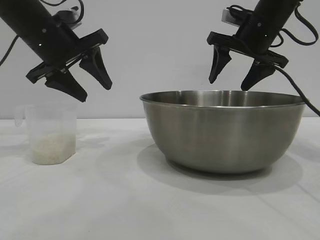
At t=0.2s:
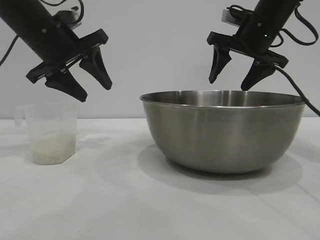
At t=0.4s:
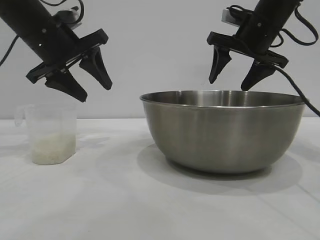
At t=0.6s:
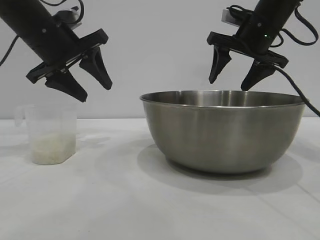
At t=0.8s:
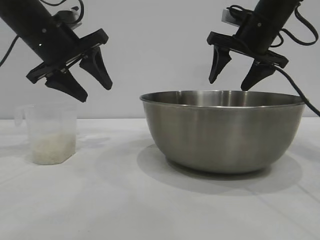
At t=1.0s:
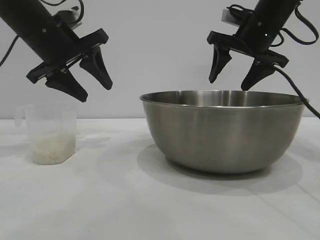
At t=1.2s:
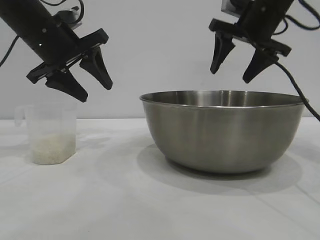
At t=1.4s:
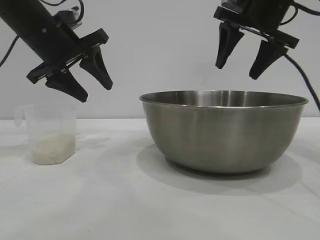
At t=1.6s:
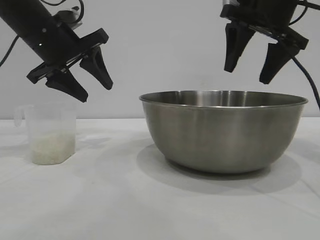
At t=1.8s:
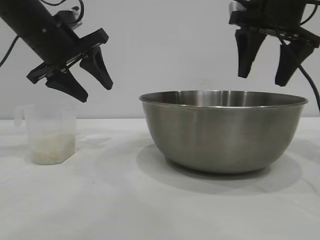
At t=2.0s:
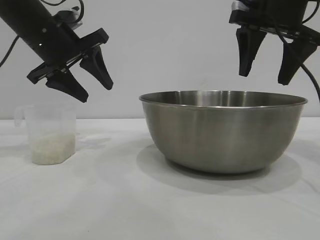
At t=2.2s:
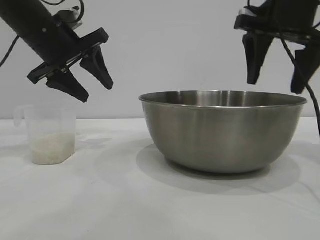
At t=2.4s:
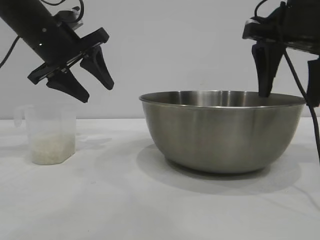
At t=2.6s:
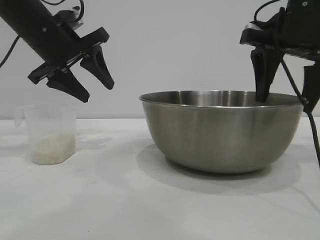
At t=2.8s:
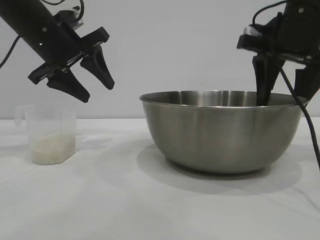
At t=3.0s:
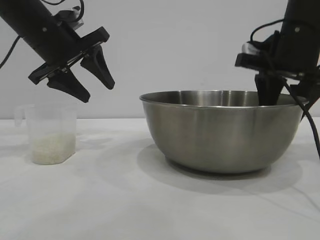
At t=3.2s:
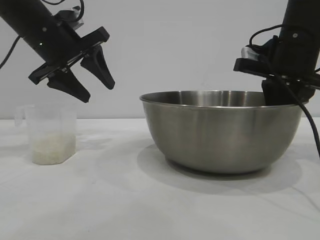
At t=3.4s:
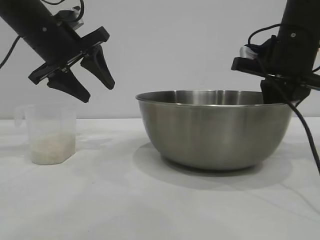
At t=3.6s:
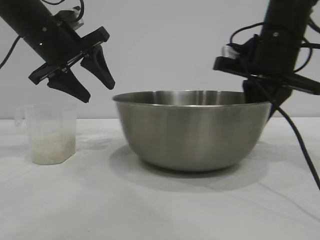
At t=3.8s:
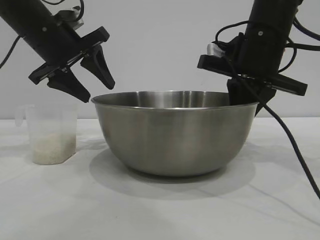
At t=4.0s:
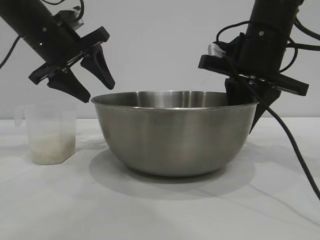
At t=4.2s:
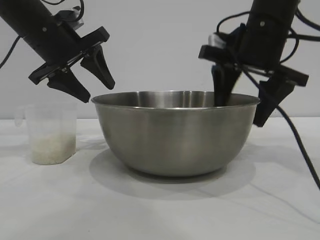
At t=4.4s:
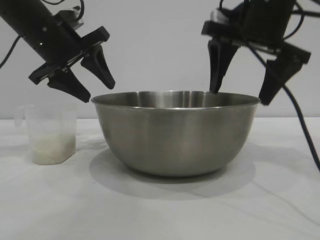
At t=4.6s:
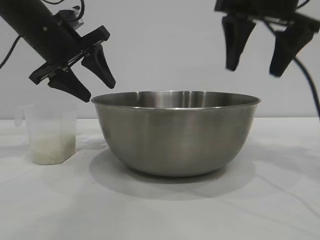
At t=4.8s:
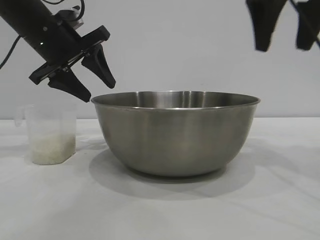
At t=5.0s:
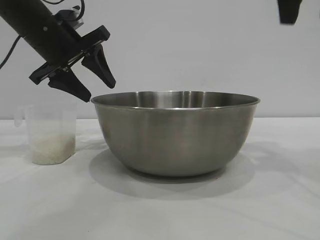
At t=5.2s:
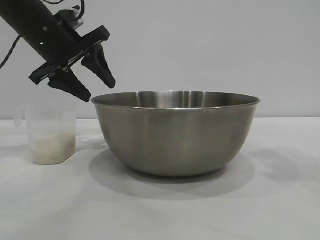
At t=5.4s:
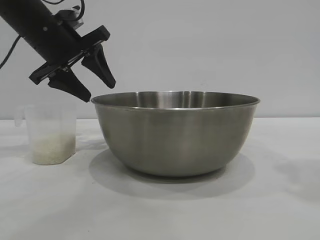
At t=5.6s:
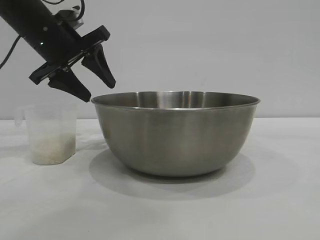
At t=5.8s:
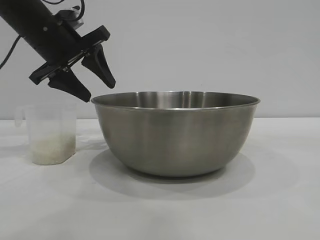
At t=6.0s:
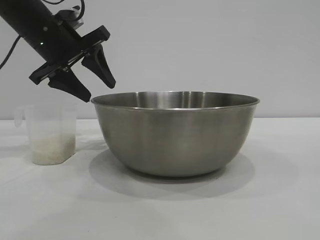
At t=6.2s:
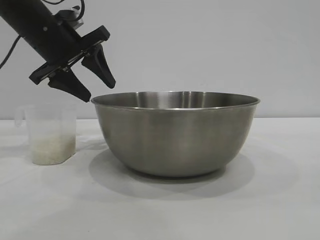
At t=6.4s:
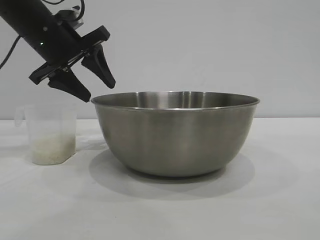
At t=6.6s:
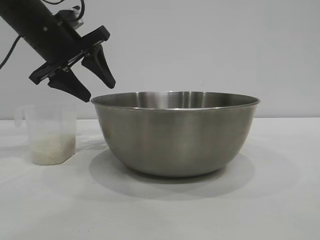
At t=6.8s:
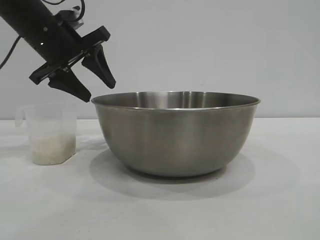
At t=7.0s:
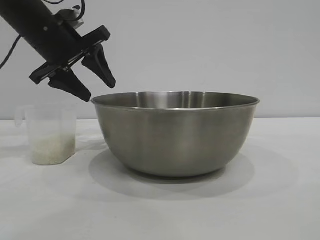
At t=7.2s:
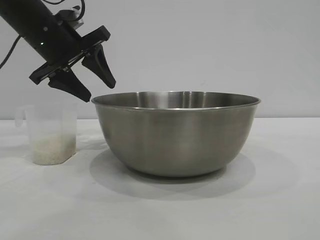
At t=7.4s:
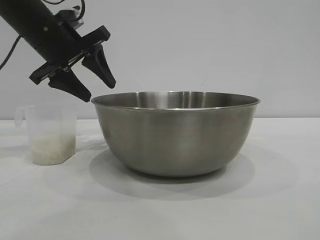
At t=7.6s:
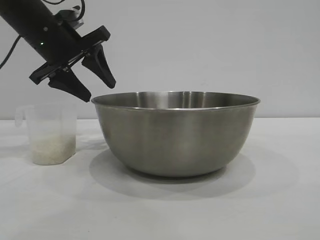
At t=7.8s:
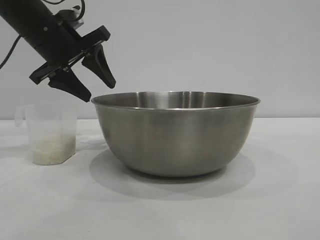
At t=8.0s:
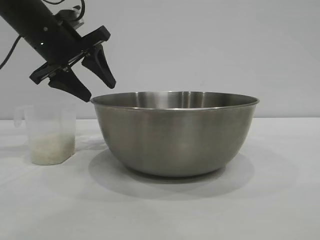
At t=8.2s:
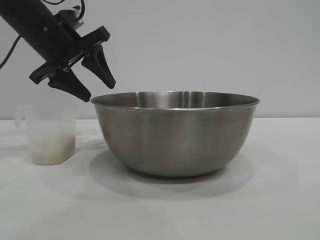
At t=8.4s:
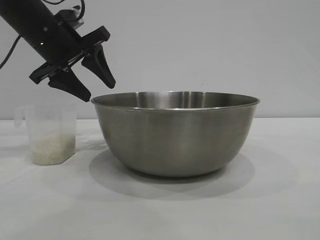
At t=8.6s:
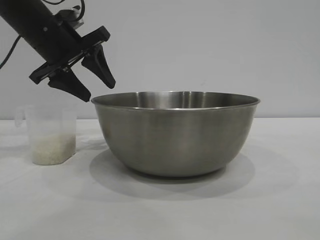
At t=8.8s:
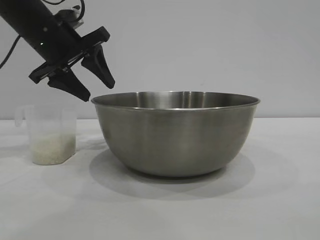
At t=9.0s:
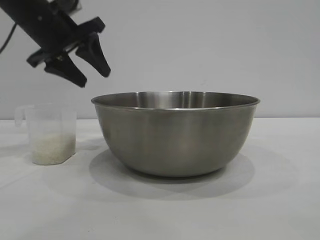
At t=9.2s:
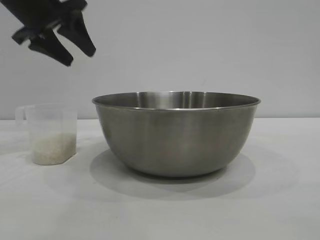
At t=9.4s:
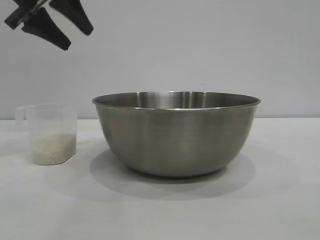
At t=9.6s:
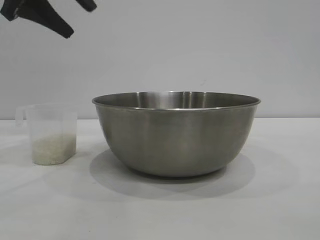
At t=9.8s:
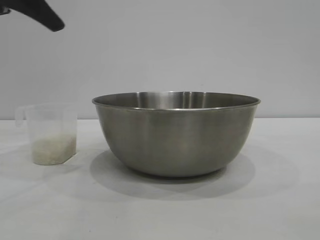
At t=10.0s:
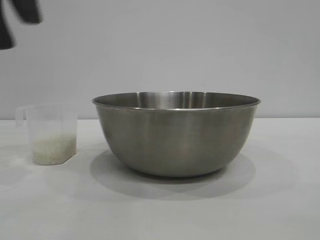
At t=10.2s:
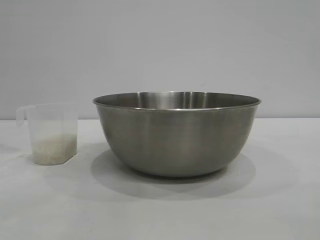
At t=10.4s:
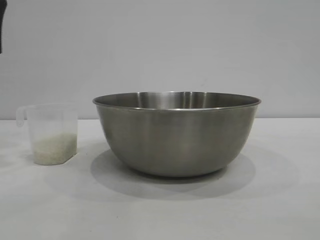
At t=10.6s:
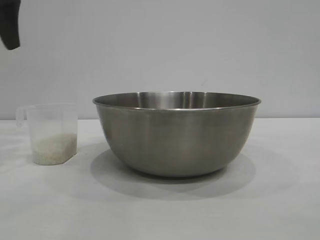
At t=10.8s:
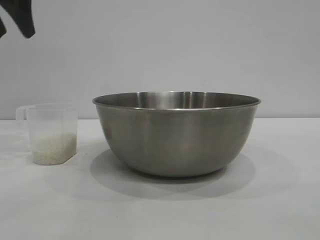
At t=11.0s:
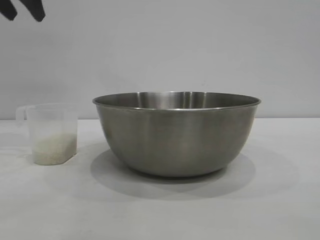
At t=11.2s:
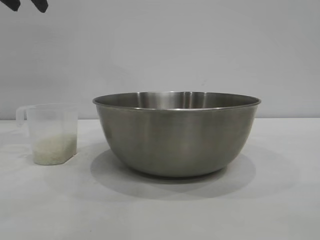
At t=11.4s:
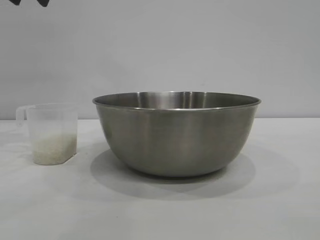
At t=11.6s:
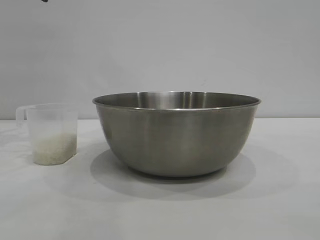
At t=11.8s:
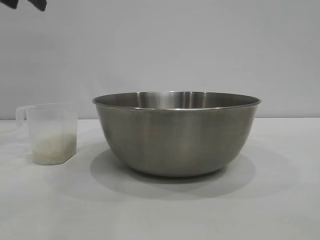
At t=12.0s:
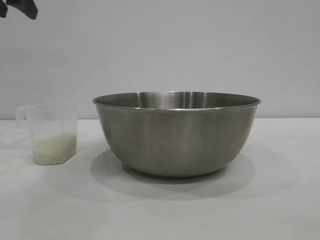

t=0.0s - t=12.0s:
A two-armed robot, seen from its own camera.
Task of the whole recording: the right gripper grasp the rice container and place it in the center of the table, the left gripper grasp the rice scoop and pour the rice into the rice container.
Step, t=0.0s - t=4.4s: Move the bowl to the center of view with the right gripper.

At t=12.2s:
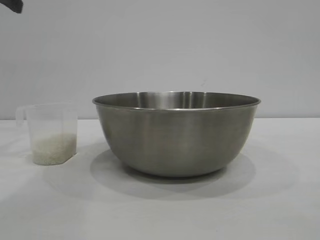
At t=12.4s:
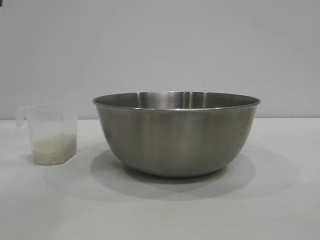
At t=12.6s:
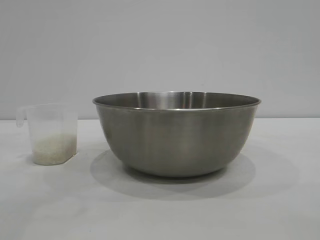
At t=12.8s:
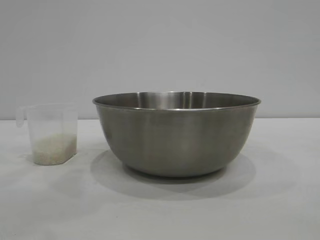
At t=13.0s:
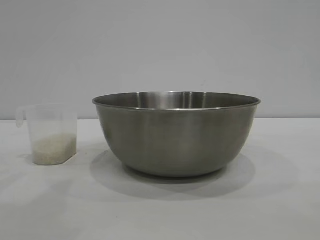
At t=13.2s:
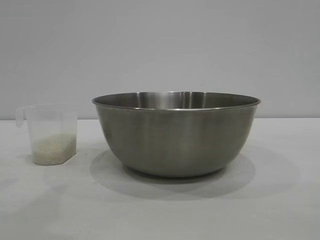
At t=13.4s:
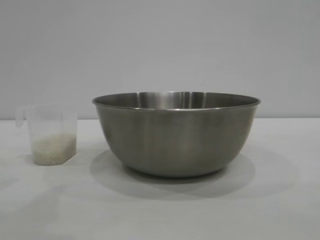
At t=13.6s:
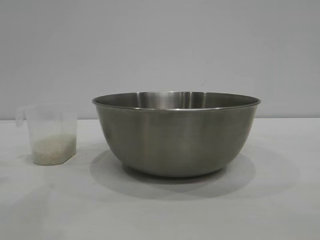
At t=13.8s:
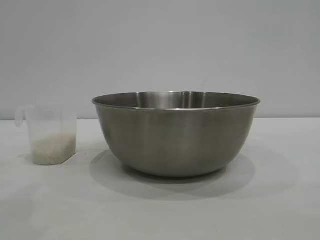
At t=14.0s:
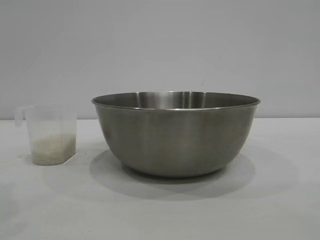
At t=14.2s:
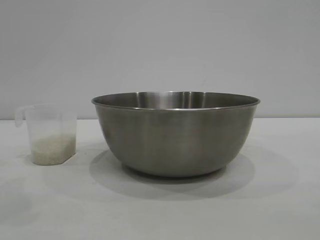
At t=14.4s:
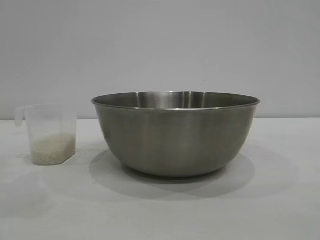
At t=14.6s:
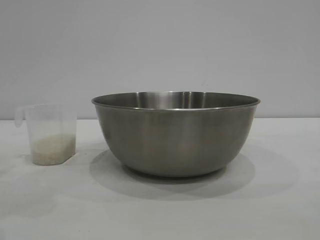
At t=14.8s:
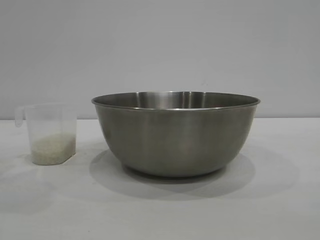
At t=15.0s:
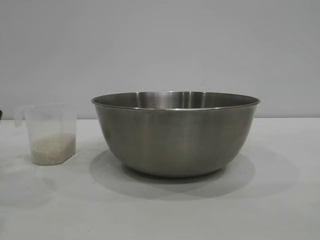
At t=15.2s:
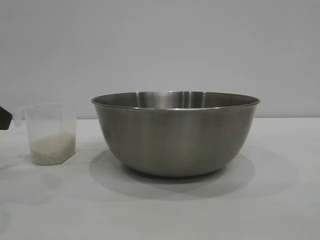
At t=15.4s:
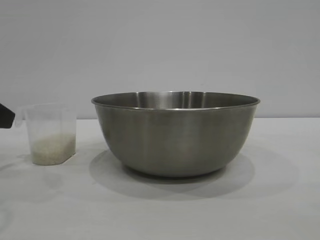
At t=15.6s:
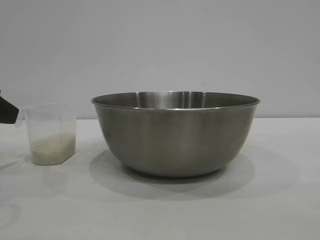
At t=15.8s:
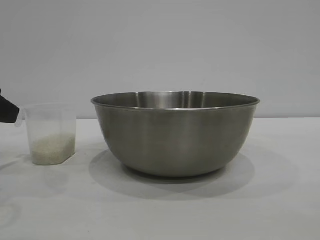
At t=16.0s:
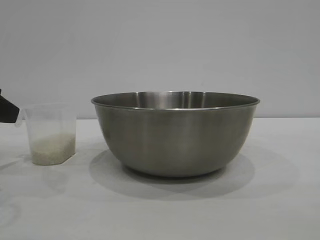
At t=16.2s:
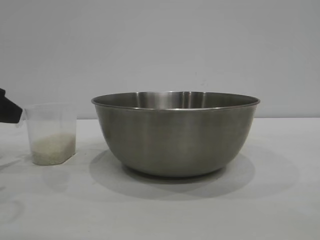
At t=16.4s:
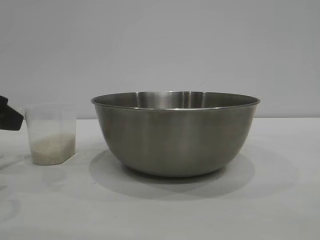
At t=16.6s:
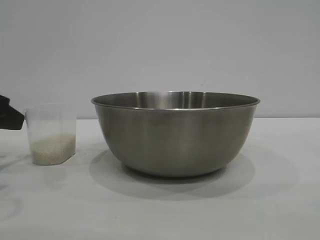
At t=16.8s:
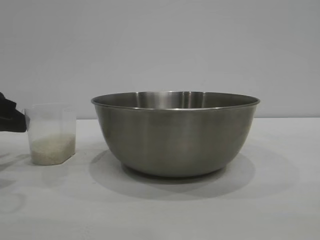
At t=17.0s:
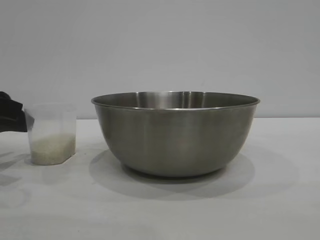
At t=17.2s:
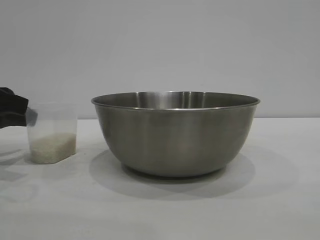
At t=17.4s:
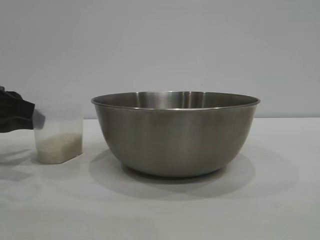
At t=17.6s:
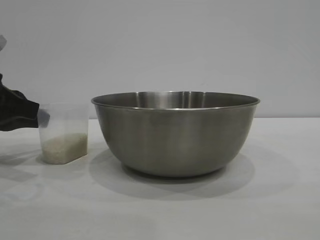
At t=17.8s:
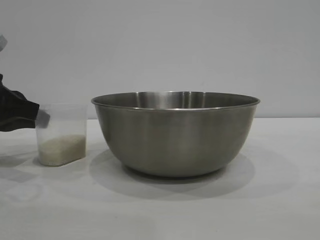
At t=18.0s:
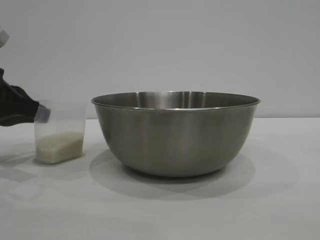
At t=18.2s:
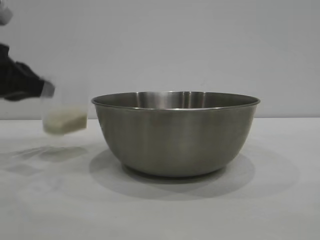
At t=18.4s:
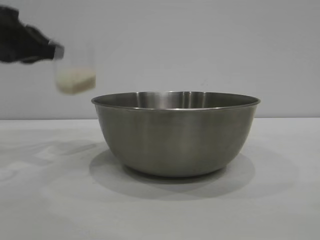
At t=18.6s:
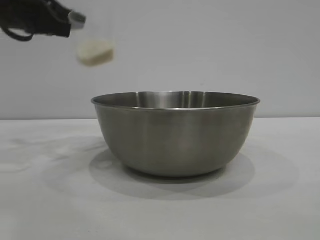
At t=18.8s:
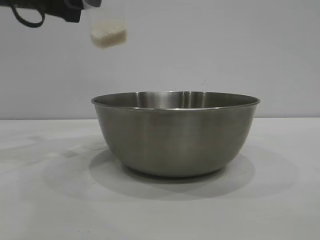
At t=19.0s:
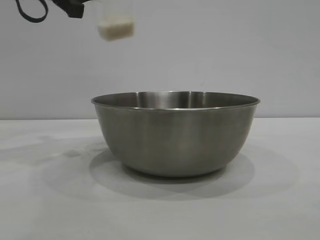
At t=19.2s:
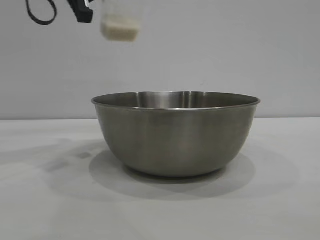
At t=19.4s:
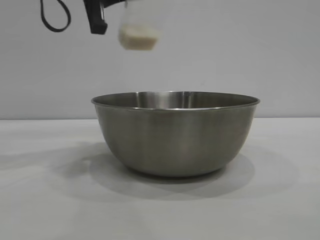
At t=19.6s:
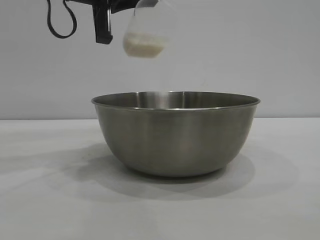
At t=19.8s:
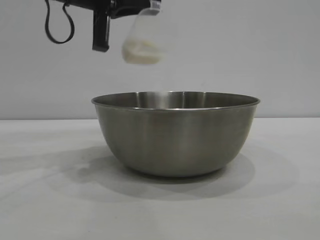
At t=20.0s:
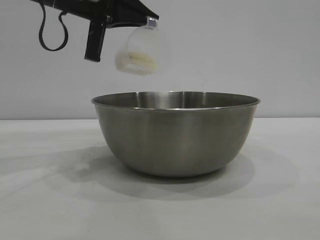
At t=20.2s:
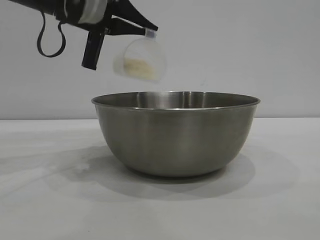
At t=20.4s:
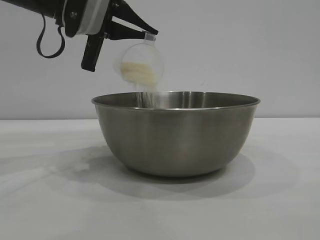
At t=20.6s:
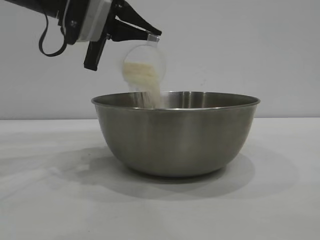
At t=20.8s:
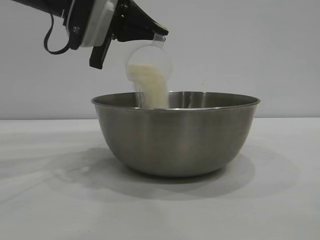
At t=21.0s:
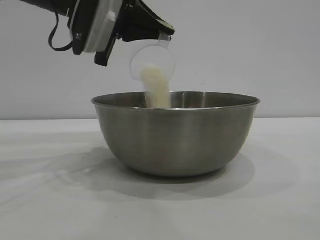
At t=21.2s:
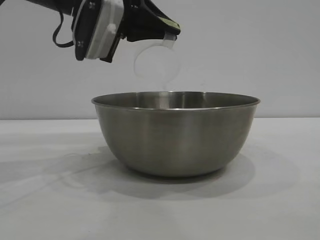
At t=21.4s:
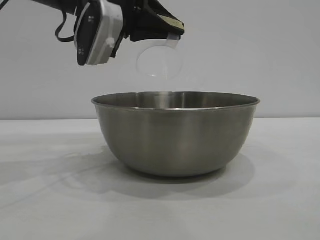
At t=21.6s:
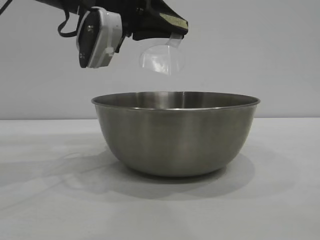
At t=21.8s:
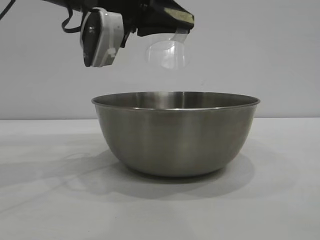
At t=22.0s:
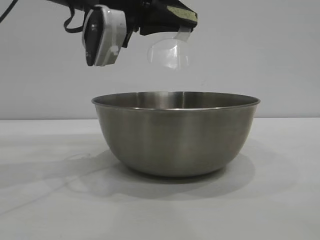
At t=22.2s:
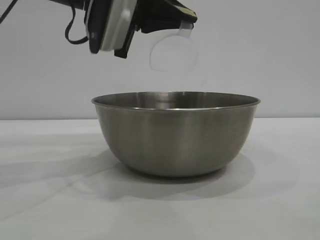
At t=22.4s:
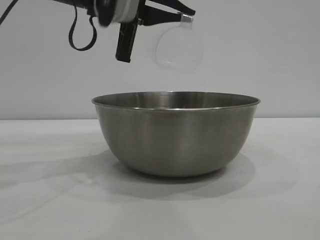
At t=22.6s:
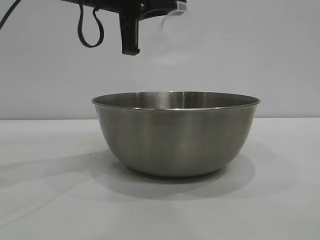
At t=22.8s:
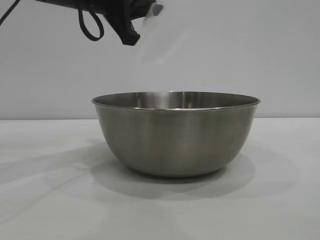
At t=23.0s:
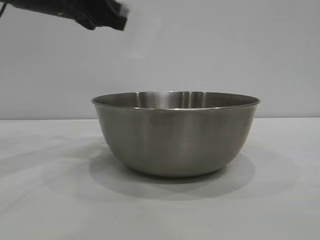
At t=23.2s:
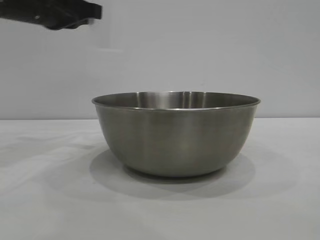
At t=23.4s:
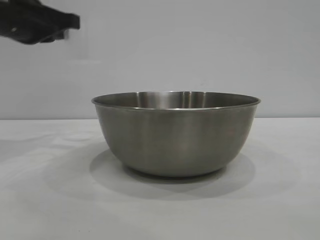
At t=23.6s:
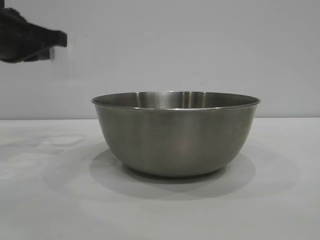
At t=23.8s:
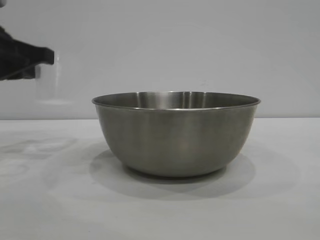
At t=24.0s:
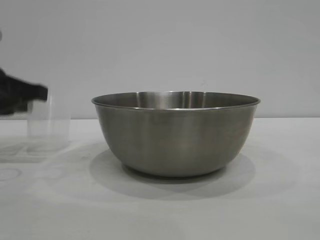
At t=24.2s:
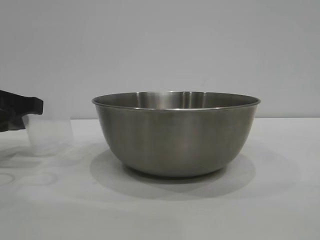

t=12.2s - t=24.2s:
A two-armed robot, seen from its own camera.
Task of the whole recording: the right gripper grasp the rice container and place it in the center of the table, the left gripper grasp the rice scoop and pour the rice into the rice container.
Step, t=12.2s - t=18.4s: Pick up the cup with rice in it with the left gripper.
Step, t=18.6s - t=22.4s: Pour the rice from the cup into the bowl with the left gripper.
